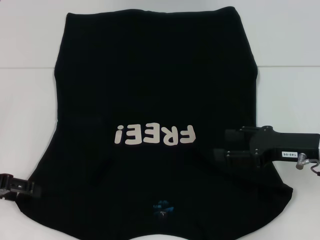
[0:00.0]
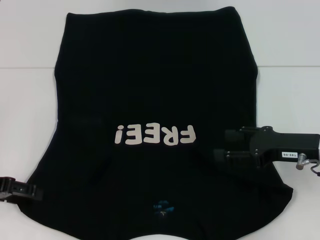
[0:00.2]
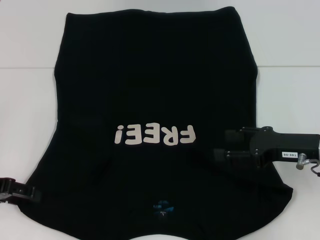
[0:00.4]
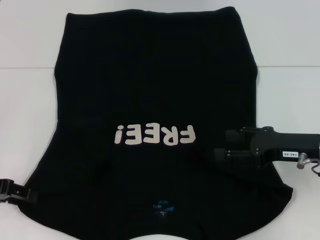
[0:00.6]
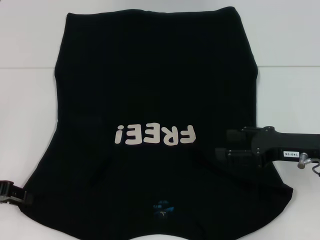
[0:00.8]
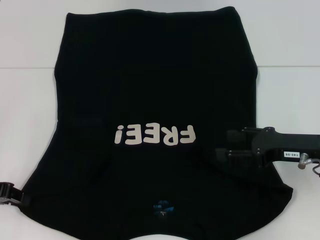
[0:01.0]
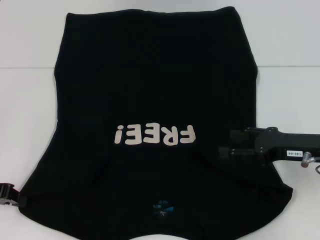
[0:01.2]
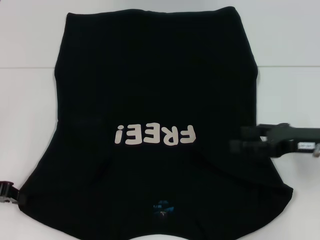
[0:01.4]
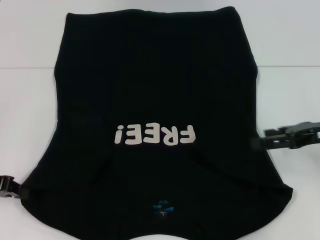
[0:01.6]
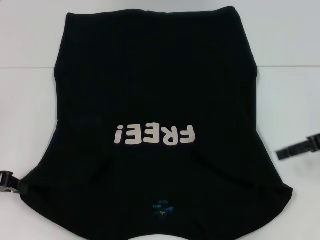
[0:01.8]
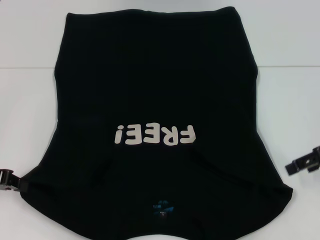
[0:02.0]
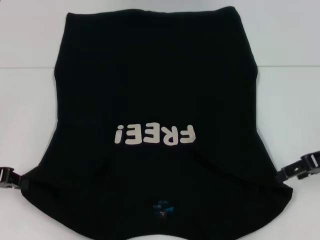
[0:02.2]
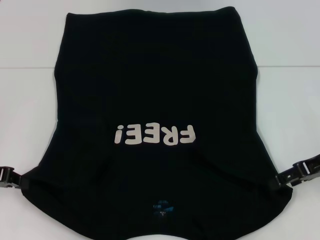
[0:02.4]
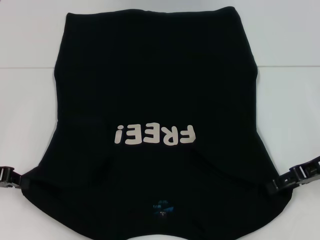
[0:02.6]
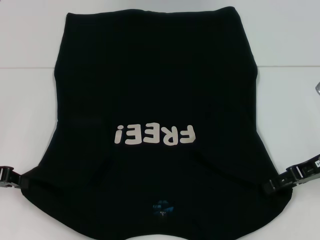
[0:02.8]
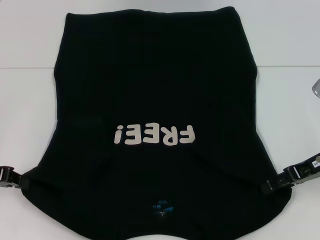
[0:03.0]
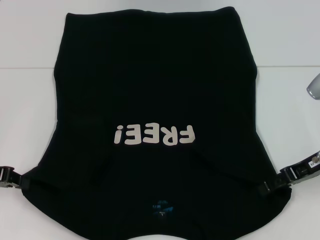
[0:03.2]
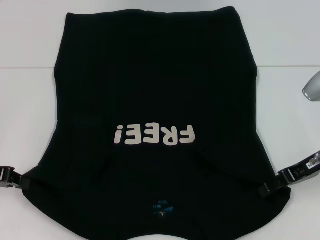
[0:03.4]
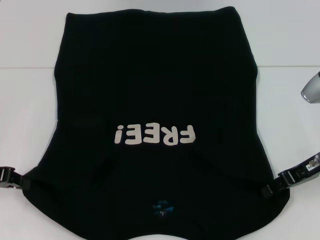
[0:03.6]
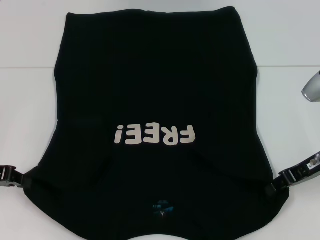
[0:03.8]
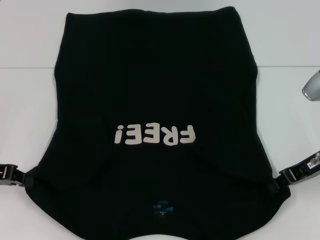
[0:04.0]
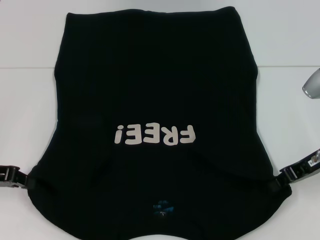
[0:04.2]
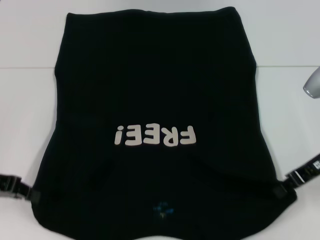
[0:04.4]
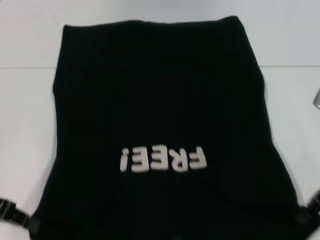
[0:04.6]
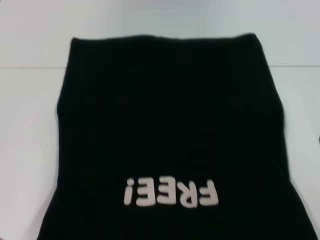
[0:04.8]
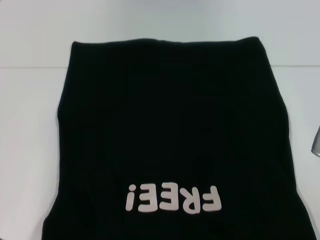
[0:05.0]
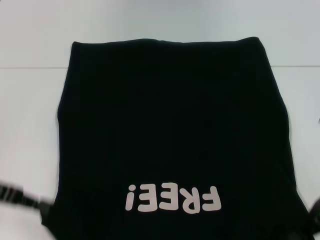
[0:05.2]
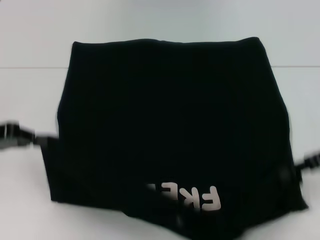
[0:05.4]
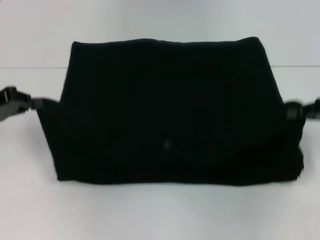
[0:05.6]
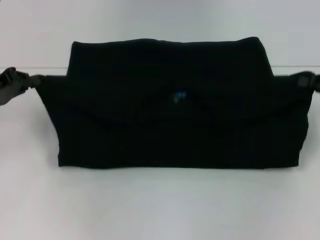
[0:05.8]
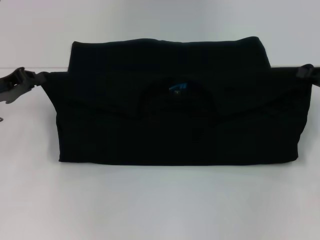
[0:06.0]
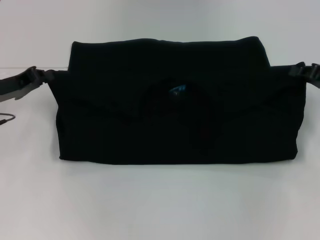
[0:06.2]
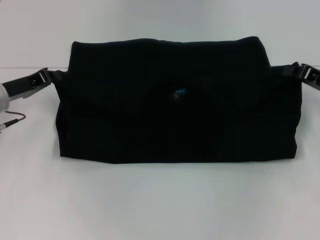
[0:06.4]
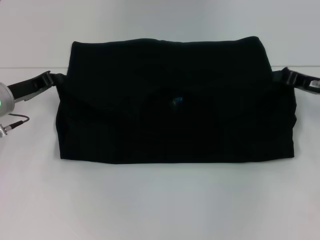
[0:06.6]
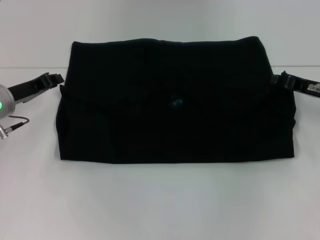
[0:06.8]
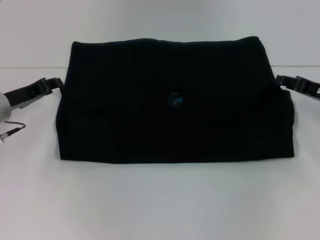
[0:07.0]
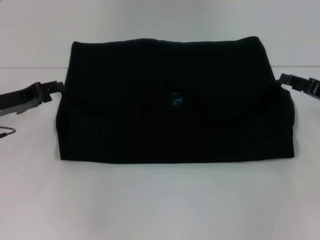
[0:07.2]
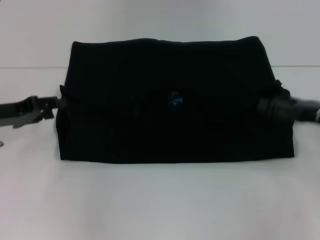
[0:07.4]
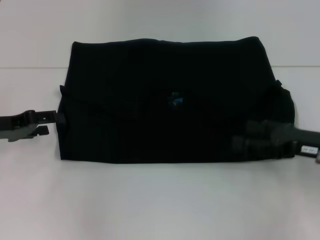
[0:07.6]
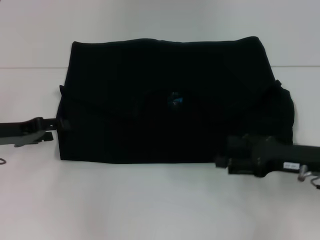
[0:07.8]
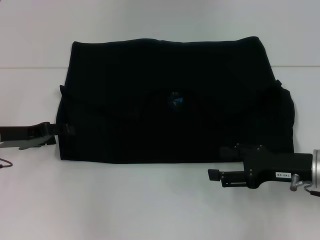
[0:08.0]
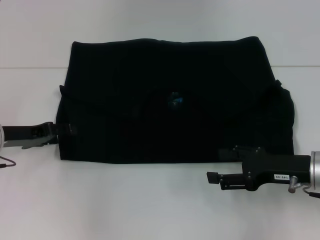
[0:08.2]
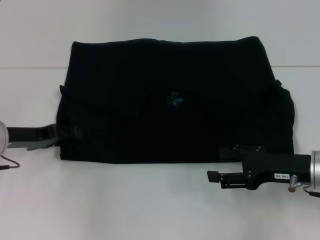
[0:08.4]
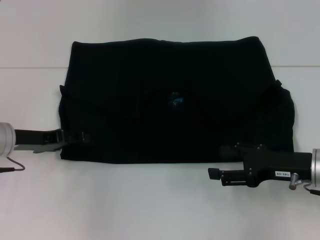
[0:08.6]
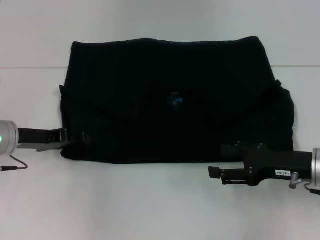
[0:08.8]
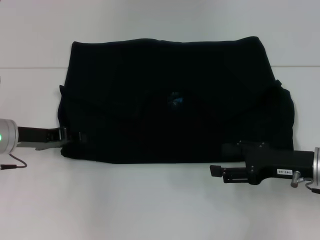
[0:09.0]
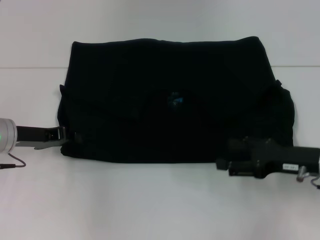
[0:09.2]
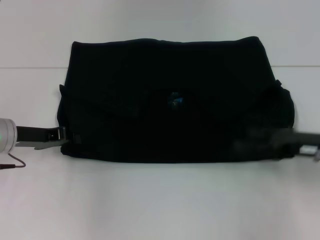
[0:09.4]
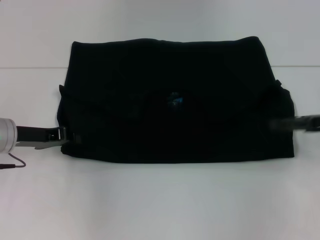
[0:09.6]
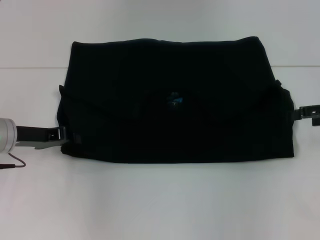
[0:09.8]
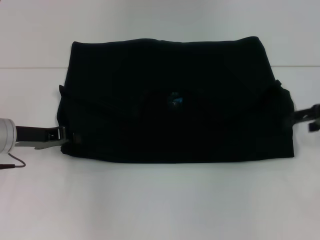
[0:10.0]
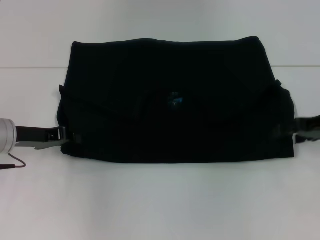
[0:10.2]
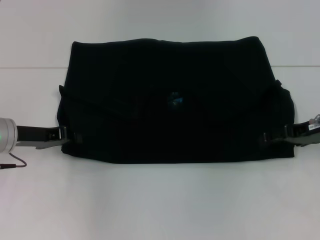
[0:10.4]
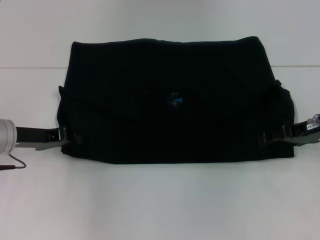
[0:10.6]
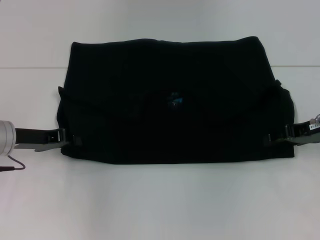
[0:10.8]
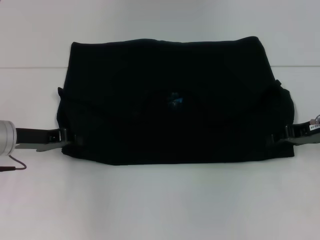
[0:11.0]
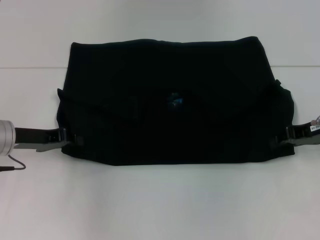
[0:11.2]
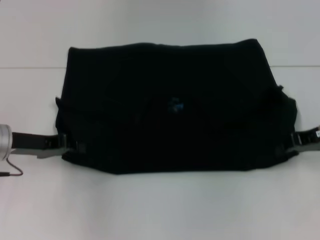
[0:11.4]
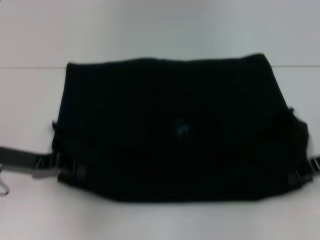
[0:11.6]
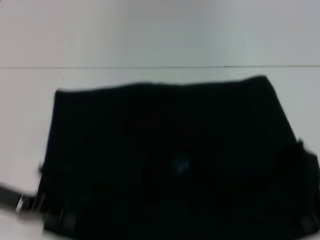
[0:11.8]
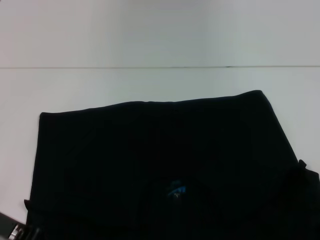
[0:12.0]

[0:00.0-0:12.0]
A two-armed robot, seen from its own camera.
Step, 0:01.6 to 0:04.2: Grab the bottom right corner with your right hand.
Step, 0:04.4 to 0:07.0: Fold the clothes with your left hand.
Step, 0:04.4 to 0:07.0: Fold the clothes with your right hand.
Step, 0:07.2 to 0:11.8: Pull the clothes with your left hand.
Step, 0:07.2 to 0:11.8: Pull the clothes with your right hand.
0:00.0 to 0:01.6: The right gripper ends up about 5 cm from where it was. The left gripper closes its fingers.
0:03.0 to 0:04.4: The right gripper closes its fingers.
0:04.4 to 0:06.0: The left gripper heads forward, covering approximately 5 cm. The right gripper heads to the right, covering approximately 10 cm.
0:06.0 to 0:07.6: The left gripper opens its fingers; the right gripper is displaced to the left and backward by about 10 cm, and opens.
0:07.6 to 0:09.0: The left gripper changes place by roughly 5 cm.
0:09.0 to 0:10.4: The left gripper closes its fingers; the right gripper heads forward, covering roughly 10 cm.
0:10.4 to 0:12.0: The grippers both shift backward by about 10 cm. The right gripper closes up.

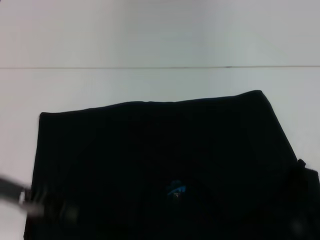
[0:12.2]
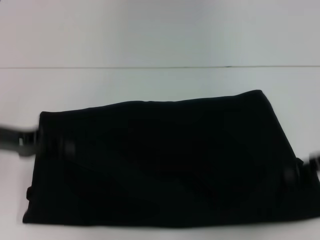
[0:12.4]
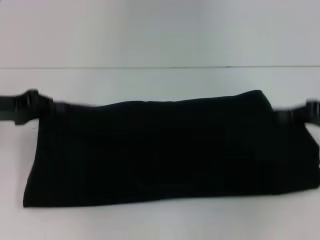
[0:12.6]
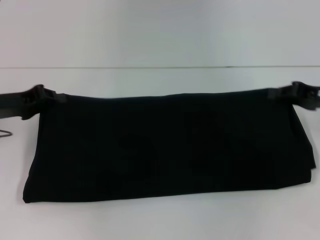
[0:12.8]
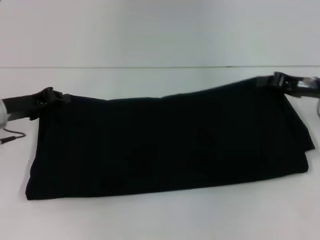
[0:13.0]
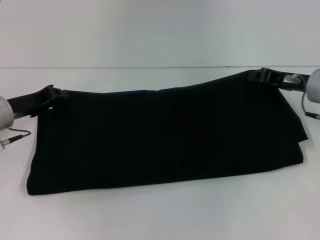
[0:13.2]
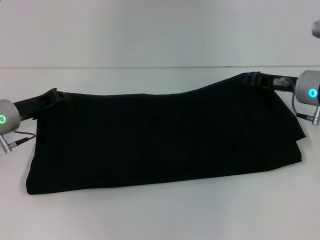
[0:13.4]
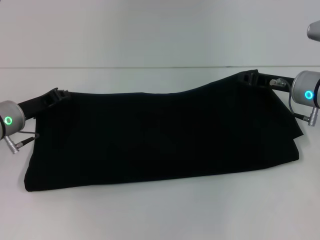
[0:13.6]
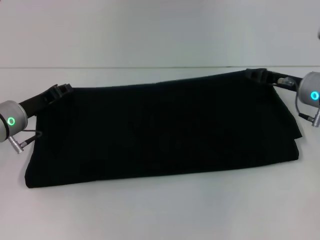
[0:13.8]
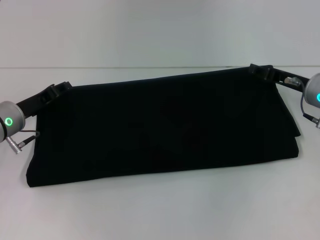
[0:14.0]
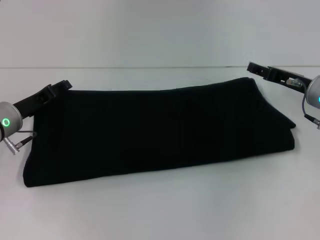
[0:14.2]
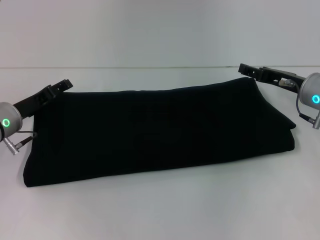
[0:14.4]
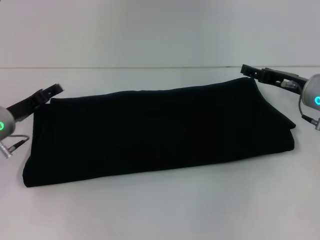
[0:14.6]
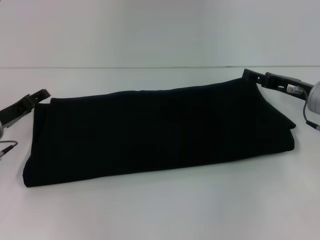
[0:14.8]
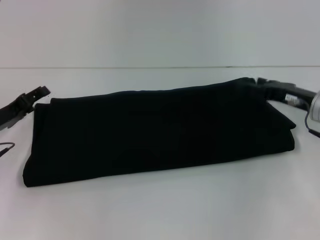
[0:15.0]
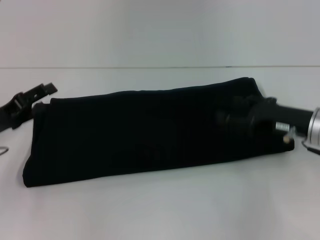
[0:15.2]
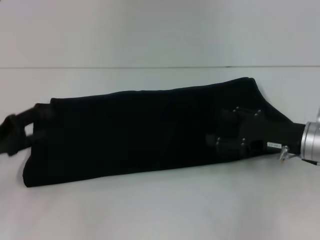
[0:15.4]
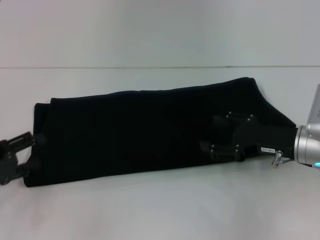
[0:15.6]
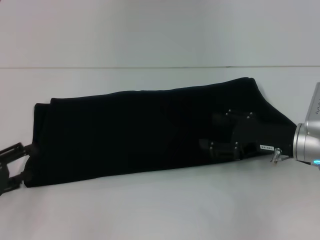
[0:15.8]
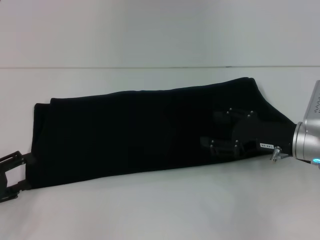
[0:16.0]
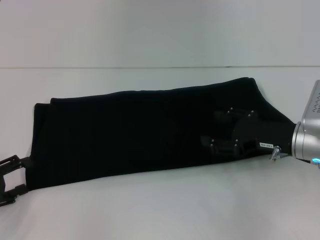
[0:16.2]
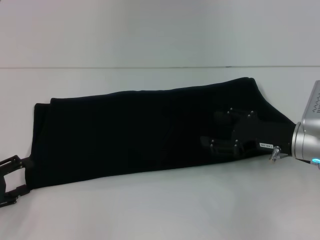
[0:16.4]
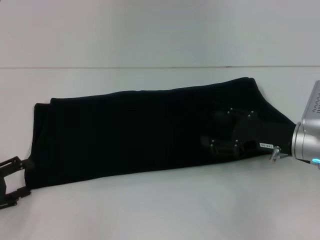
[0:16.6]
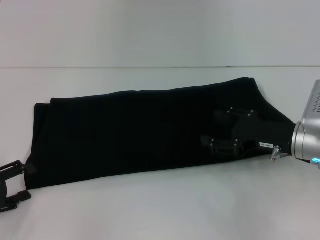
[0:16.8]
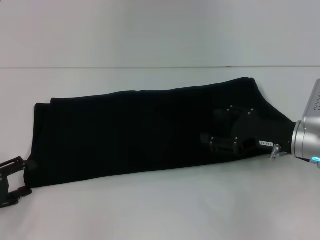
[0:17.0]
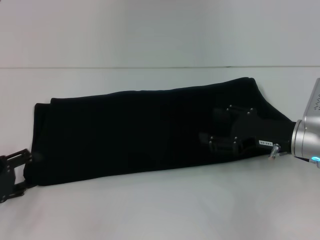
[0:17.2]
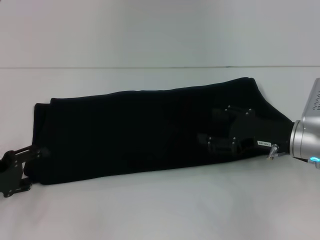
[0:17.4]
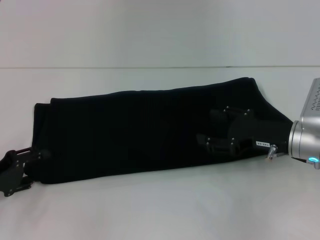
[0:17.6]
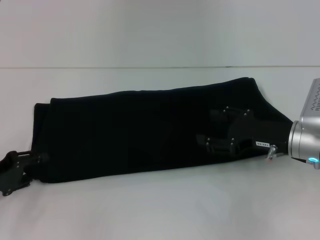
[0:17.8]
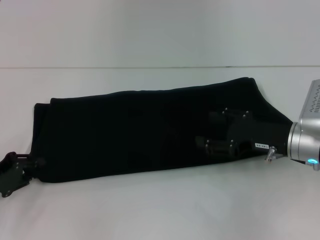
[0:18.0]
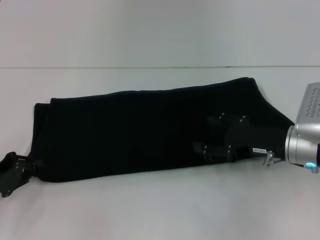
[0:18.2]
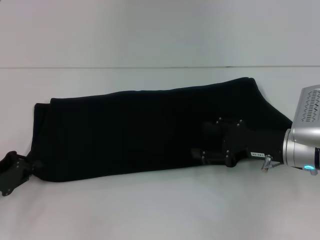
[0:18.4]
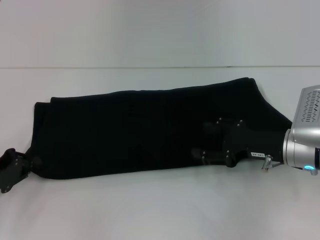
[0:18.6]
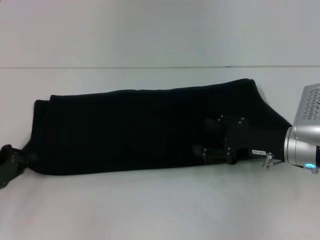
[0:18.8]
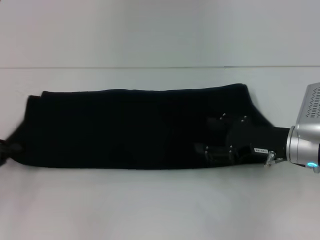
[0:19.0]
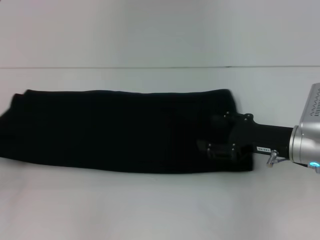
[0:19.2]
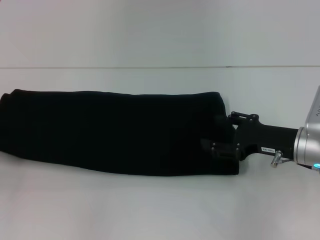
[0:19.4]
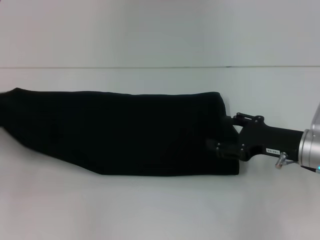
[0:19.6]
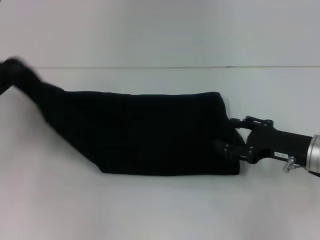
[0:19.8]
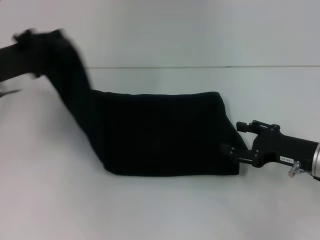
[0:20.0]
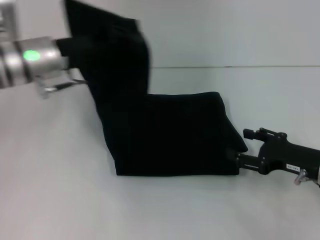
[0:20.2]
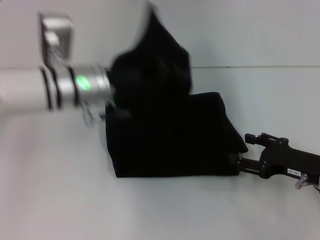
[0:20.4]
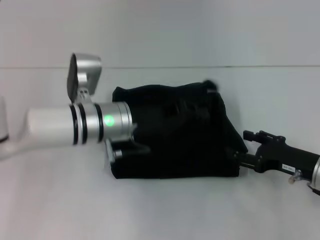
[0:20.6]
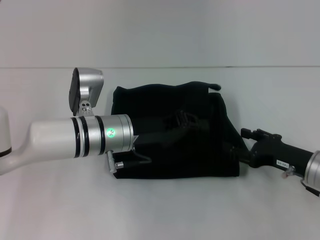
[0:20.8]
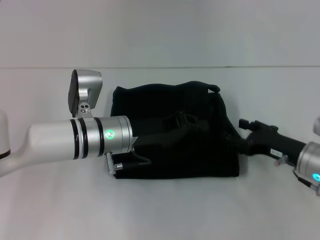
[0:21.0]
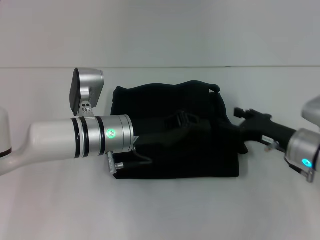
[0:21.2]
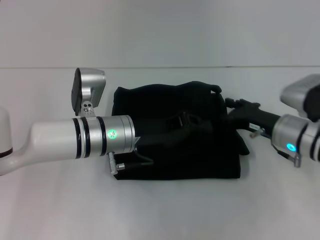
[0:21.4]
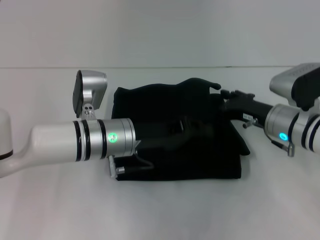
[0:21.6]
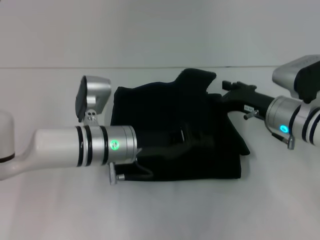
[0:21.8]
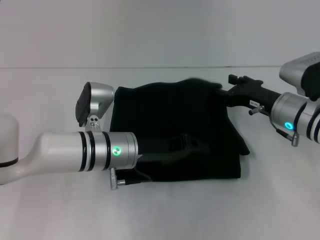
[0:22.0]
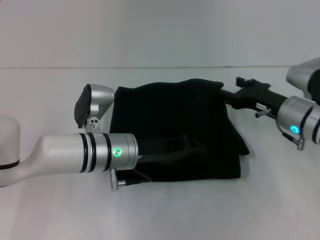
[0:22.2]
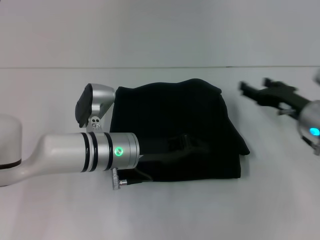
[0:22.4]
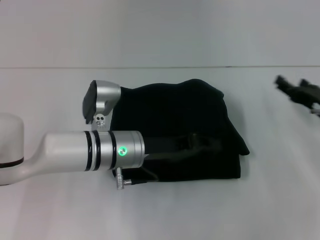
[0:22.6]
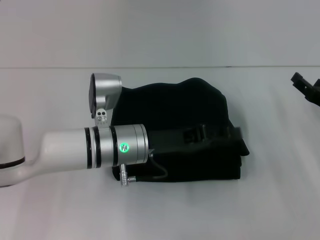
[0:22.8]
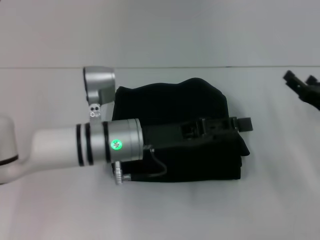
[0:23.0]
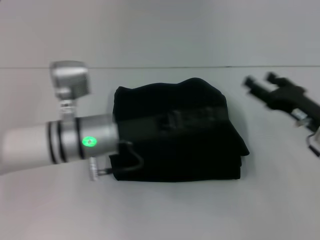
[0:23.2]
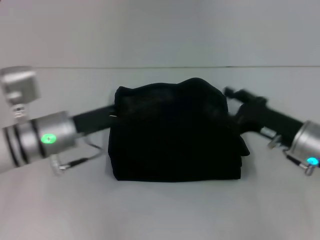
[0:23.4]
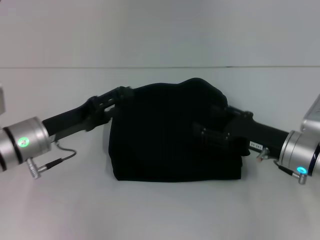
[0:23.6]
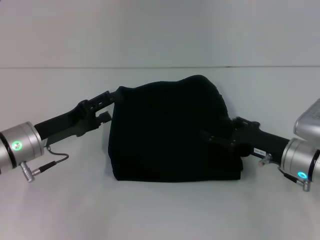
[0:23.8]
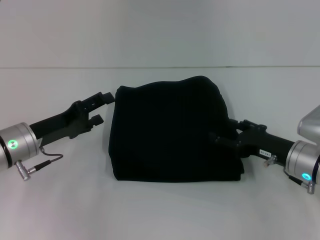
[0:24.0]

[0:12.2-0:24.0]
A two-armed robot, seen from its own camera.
Step, 0:12.2 to 0:14.8: Fold the clothes with your right hand.
Step, 0:12.2 to 0:22.8: Fold the clothes with your left hand.
0:12.2 to 0:13.6: The right gripper travels forward and to the left by some 15 cm. Meanwhile the left gripper shifts approximately 10 cm forward.
0:13.6 to 0:15.2: The grippers both shift backward by about 5 cm. The right gripper opens. Meanwhile the left gripper opens up.
0:15.2 to 0:16.6: The left gripper travels backward by about 10 cm.
0:16.6 to 0:18.2: The left gripper closes.
0:18.2 to 0:19.6: The left gripper goes some 10 cm upward and to the left, and closes its fingers.
0:19.6 to 0:21.0: The left gripper travels to the right by some 30 cm.
0:21.0 to 0:22.6: The right gripper moves approximately 5 cm.
0:22.6 to 0:24.0: The right gripper shifts approximately 5 cm to the left; the left gripper is displaced to the left by approximately 15 cm, and opens.
